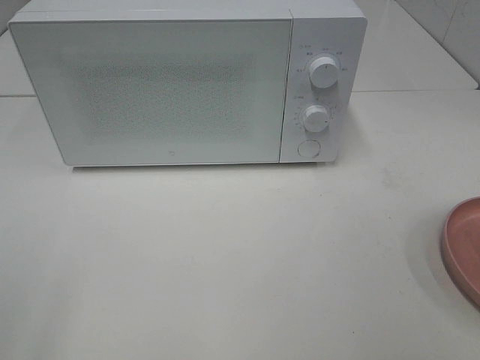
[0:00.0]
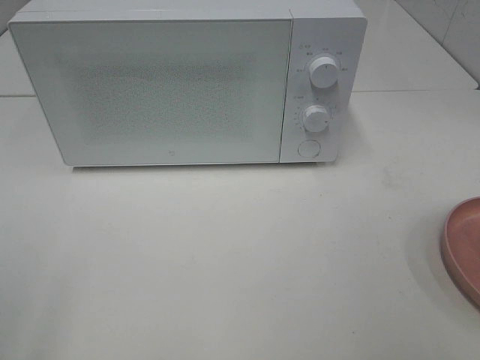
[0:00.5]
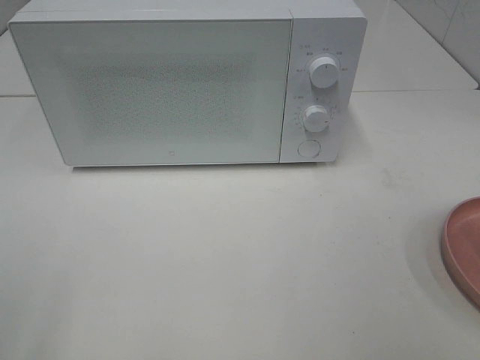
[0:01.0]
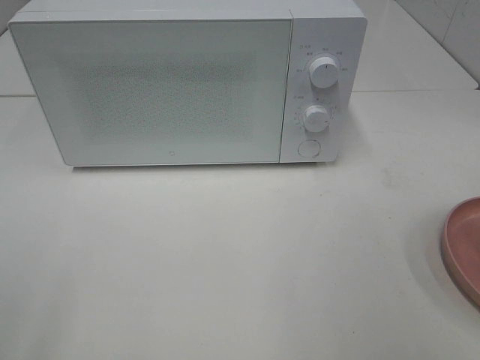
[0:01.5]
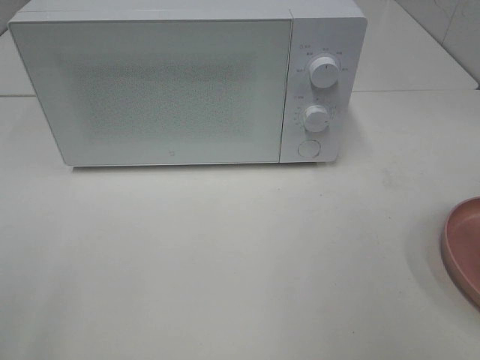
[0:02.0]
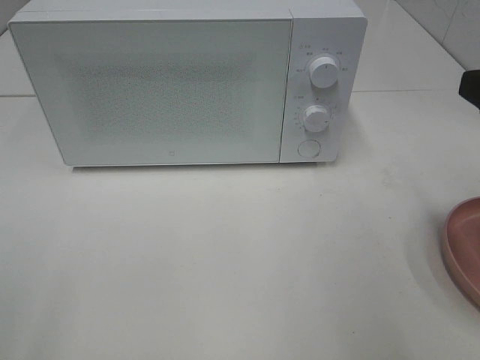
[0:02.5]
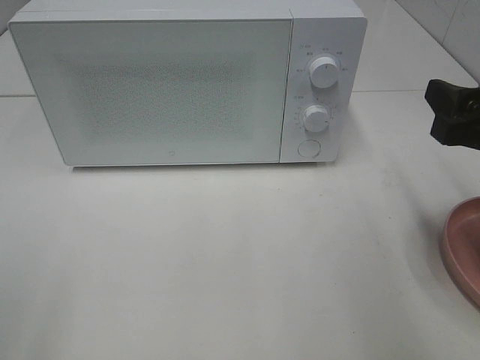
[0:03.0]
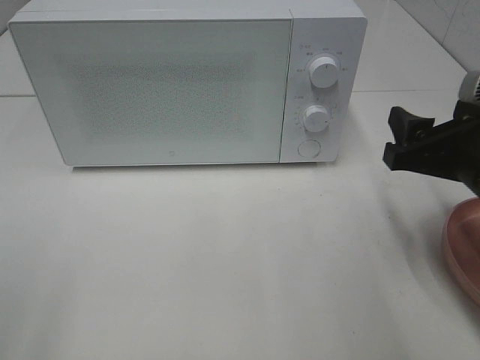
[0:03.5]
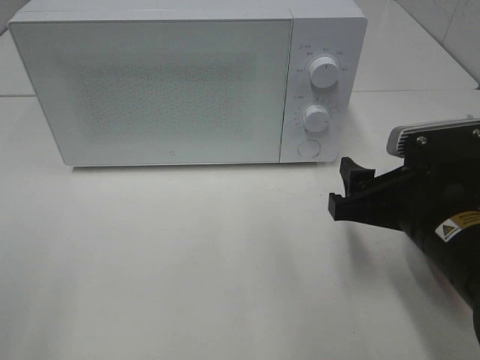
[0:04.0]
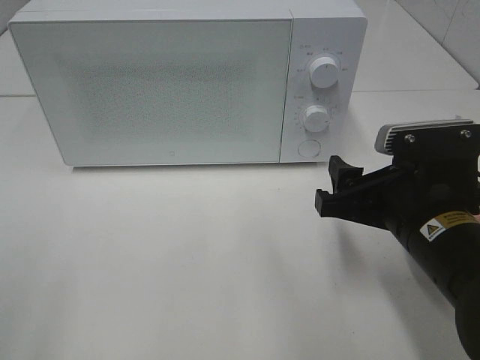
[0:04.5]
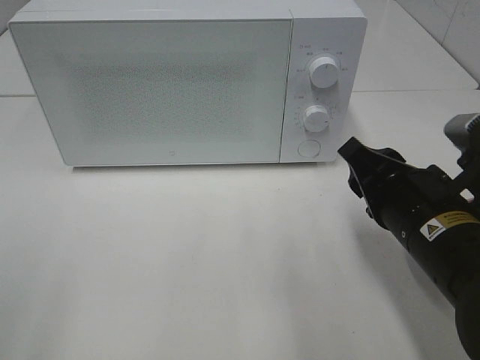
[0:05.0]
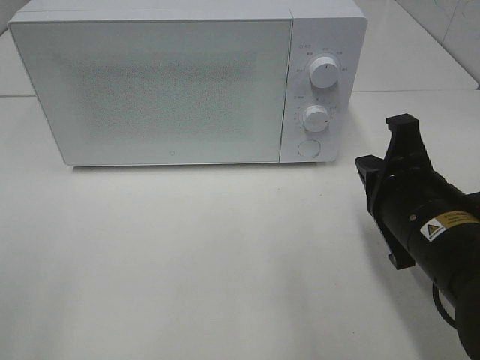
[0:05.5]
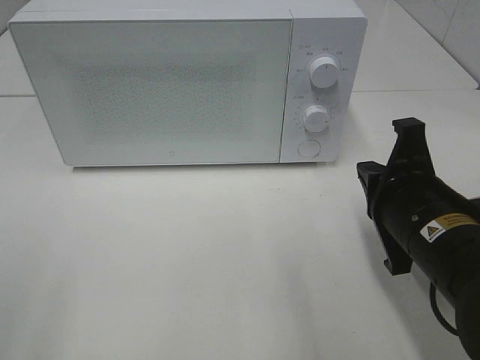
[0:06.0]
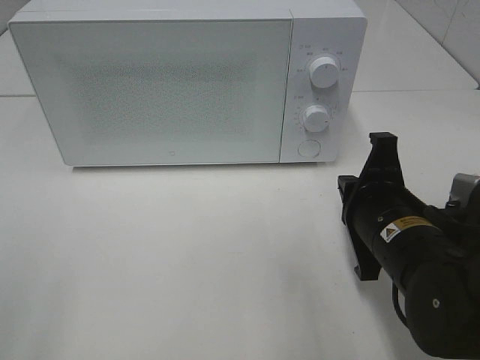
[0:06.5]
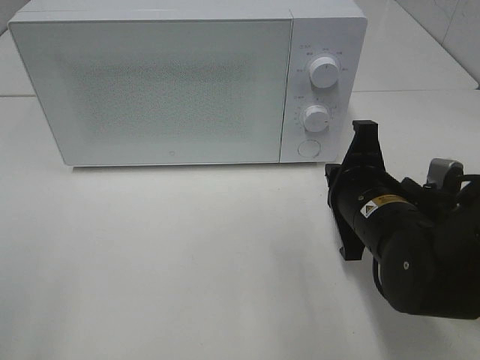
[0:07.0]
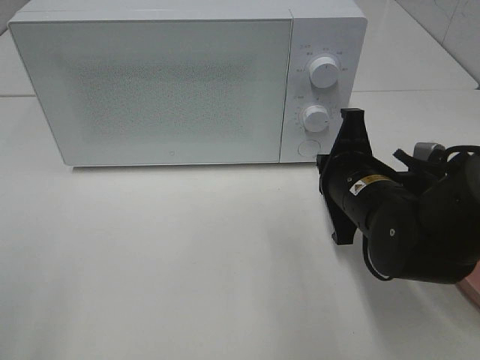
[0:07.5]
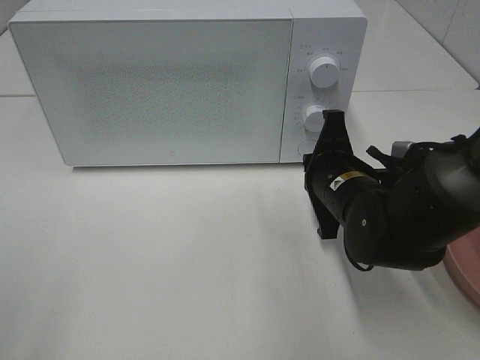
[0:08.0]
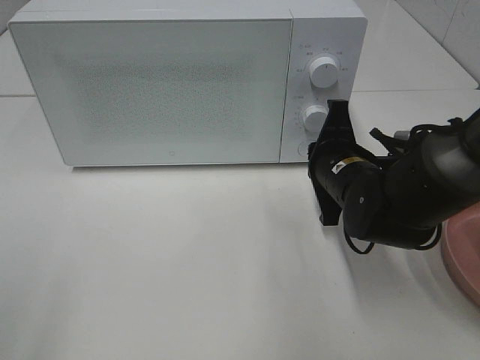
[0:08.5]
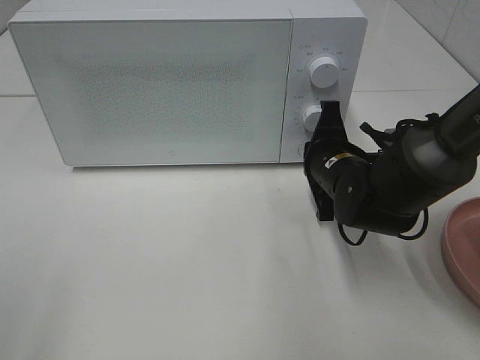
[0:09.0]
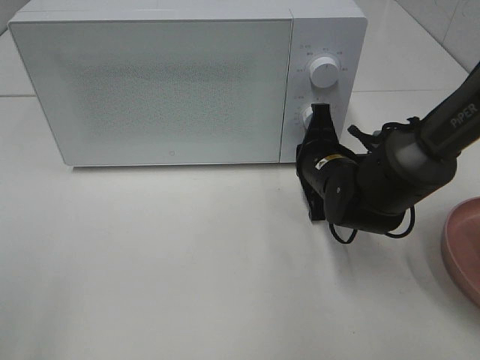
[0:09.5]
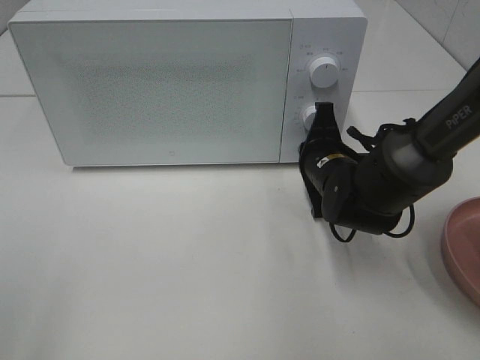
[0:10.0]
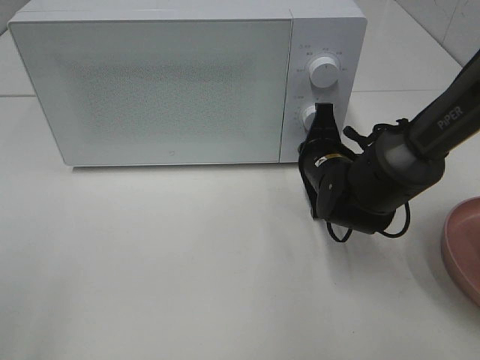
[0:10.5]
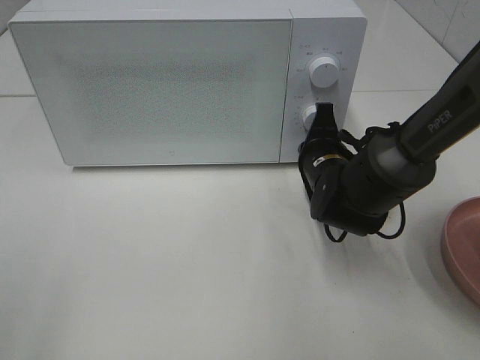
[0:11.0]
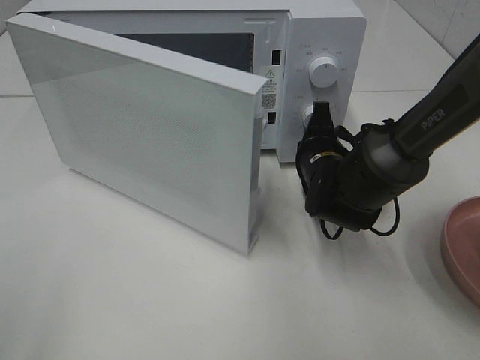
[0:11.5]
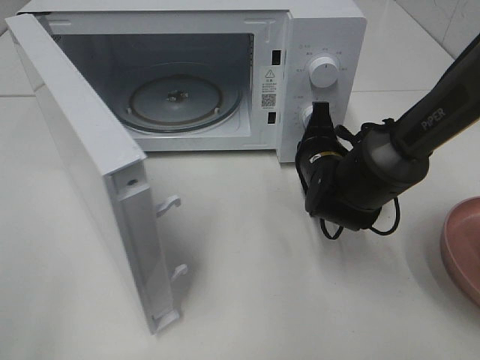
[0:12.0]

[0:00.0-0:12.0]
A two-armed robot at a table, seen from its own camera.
Task of the whole recording: Heat the burger.
0:02.0 to 0:04.0: The right gripper goes roughly 20 cm downward and to the left.
0:04.0 to 0:06.0: The right gripper closes.
0:06.0 to 0:08.0: The right gripper moves forward, approximately 10 cm.
0:08.0 to 0:10.0: The right gripper is displaced forward by some 5 cm.

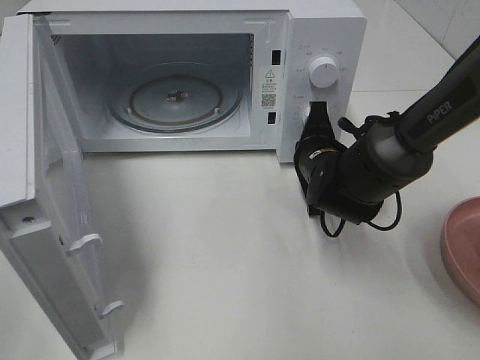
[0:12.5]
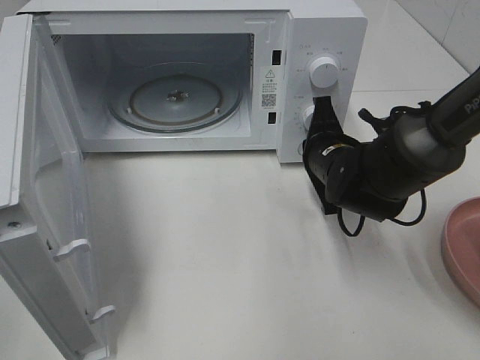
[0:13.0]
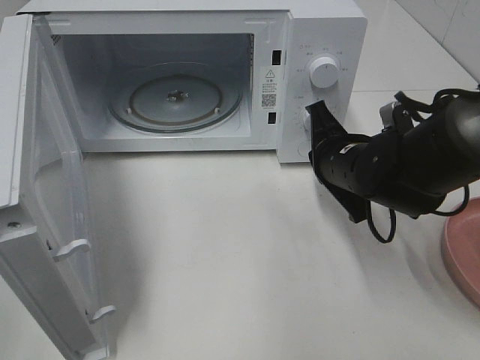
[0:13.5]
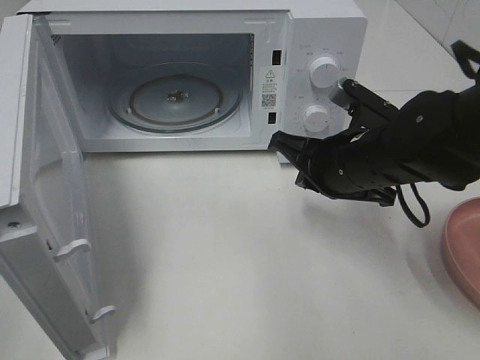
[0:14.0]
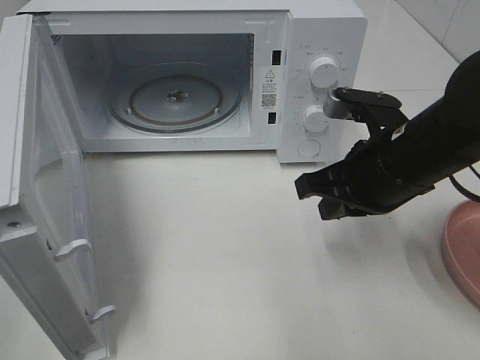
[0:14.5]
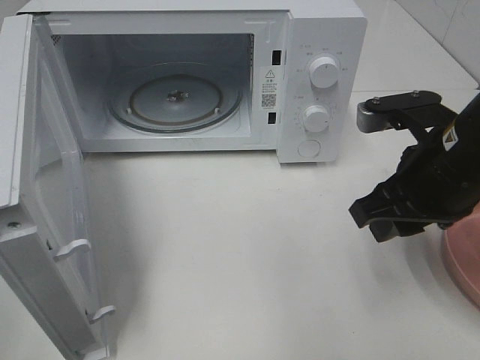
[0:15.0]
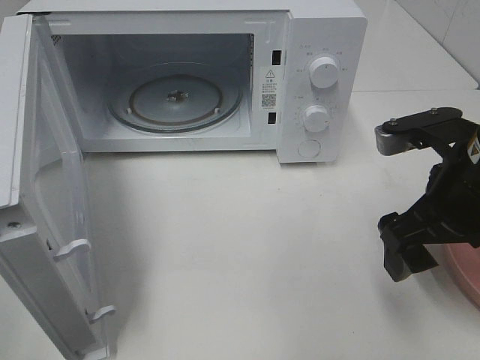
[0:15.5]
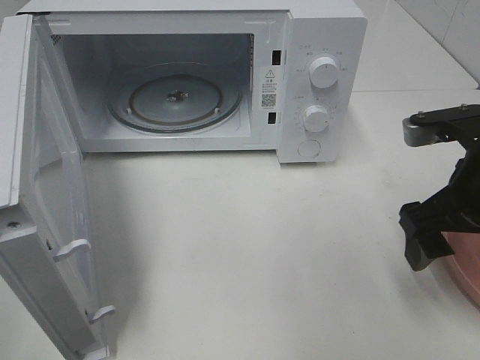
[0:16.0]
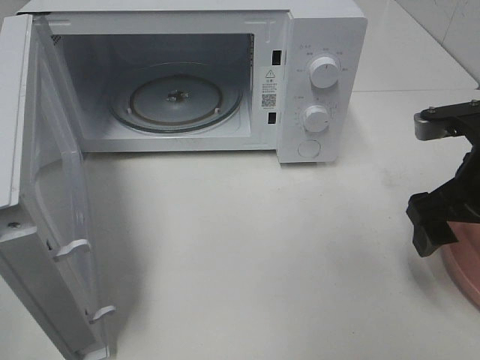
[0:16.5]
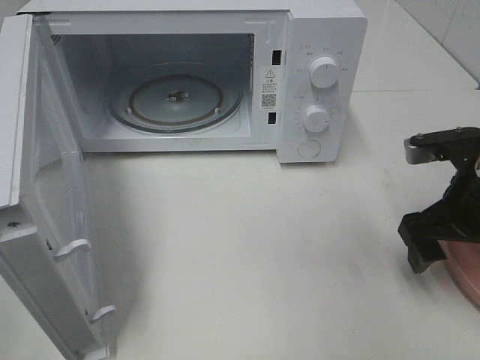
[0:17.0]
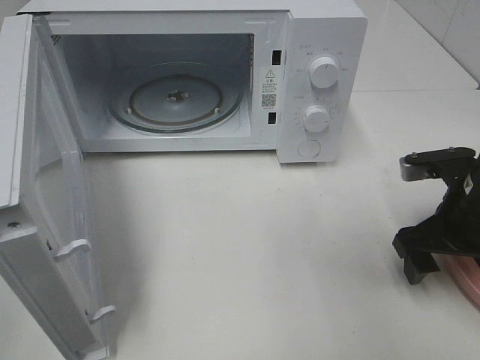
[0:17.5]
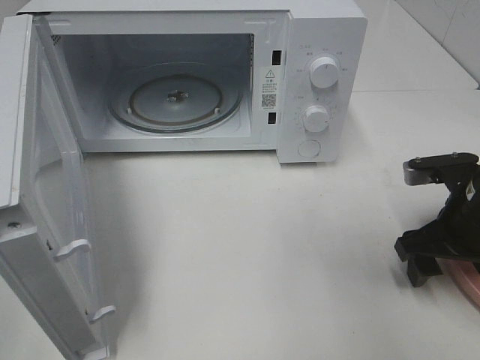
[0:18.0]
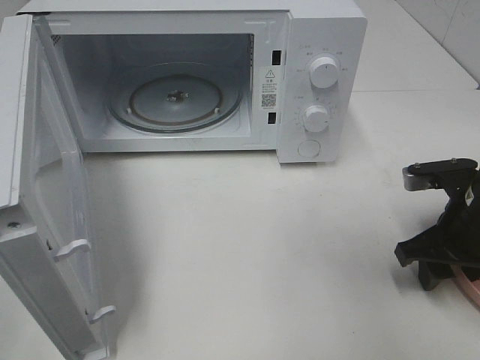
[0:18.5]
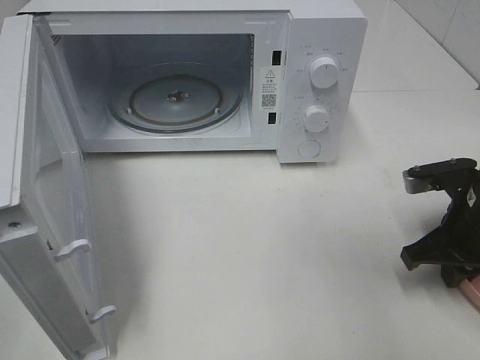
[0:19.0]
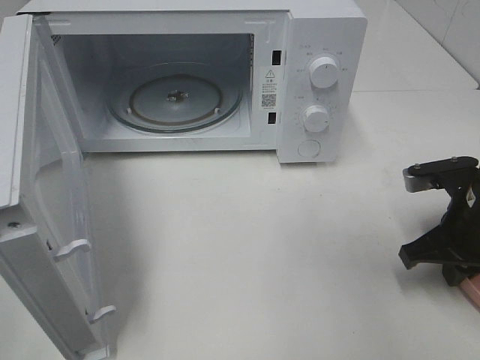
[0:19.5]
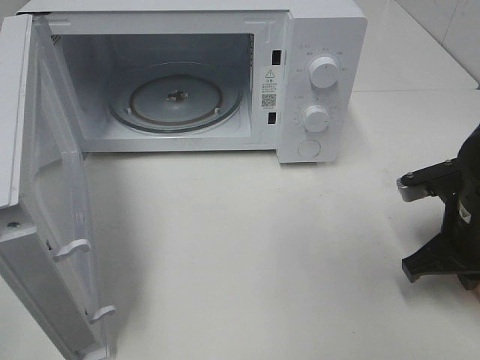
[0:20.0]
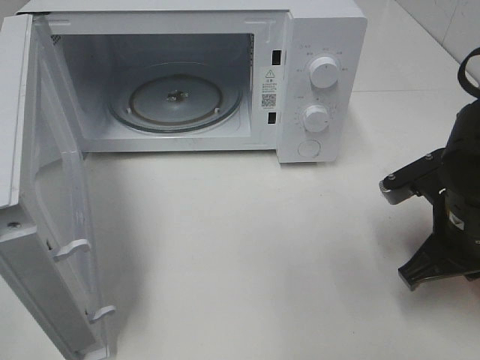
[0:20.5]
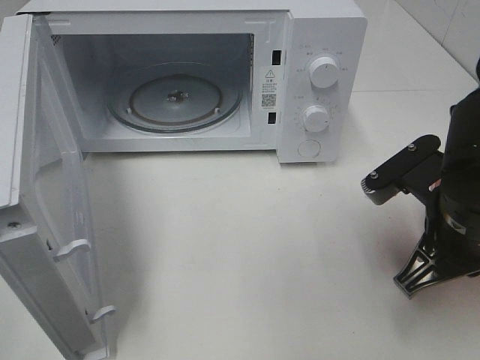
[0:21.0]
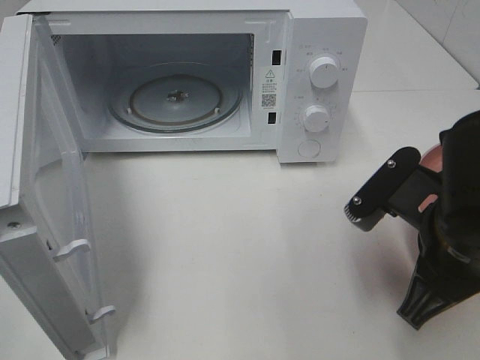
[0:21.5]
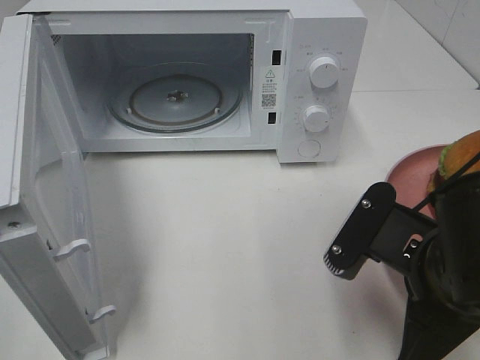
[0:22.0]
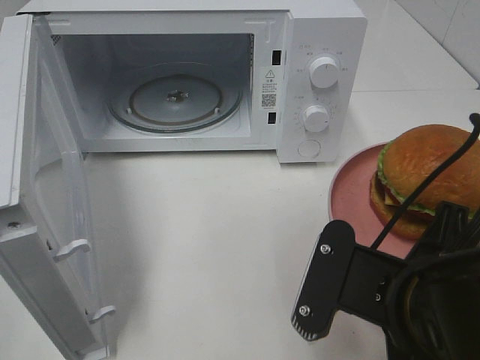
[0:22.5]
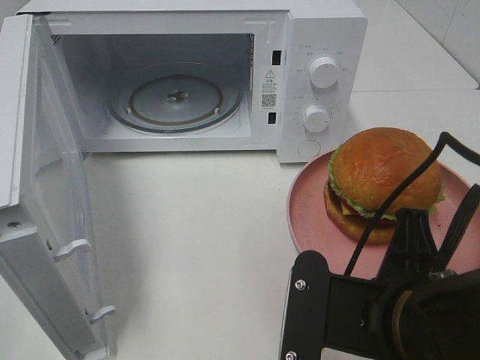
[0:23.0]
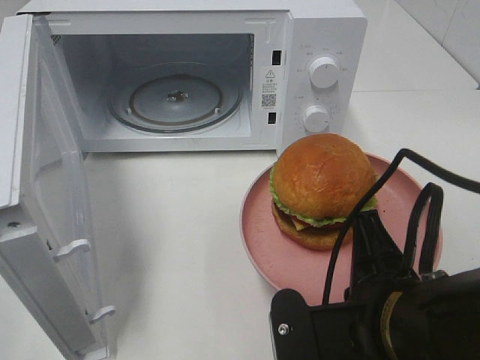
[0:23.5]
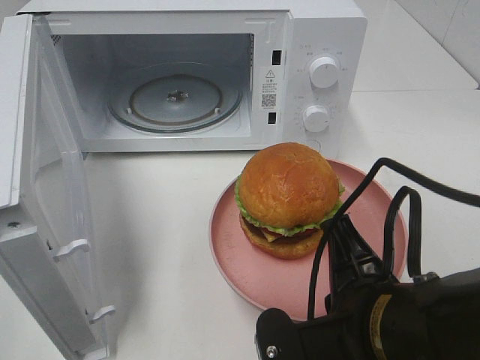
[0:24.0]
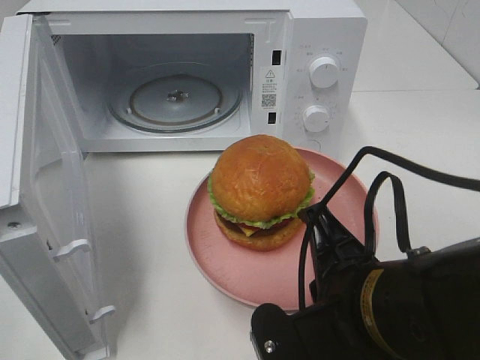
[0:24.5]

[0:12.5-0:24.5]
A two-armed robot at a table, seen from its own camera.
Task of the whole recording: Heat the burger.
Step, 0:13.5 to 0:19.5: Right hand: grab the plate with the hamburger.
0:12.5 to 0:14.5: The right gripper heads upward and backward, covering some 15 cm.
0:14.5 to 0:16.5: The right gripper is displaced to the right by approximately 10 cm, and opens.
0:16.5 to 0:18.5: The right gripper moves downward, roughly 10 cm, and closes up.
0:18.5 to 0:20.5: The right gripper changes place by some 5 cm, and closes up.
0:20.5 to 0:22.5: The right gripper heads backward and to the left, covering some 15 cm.

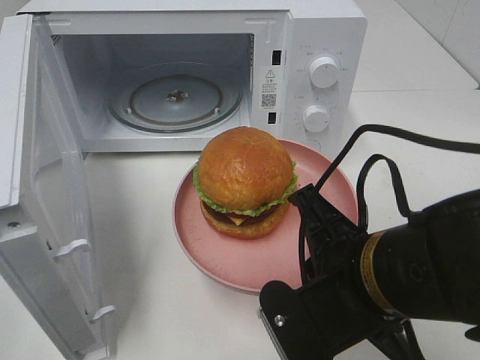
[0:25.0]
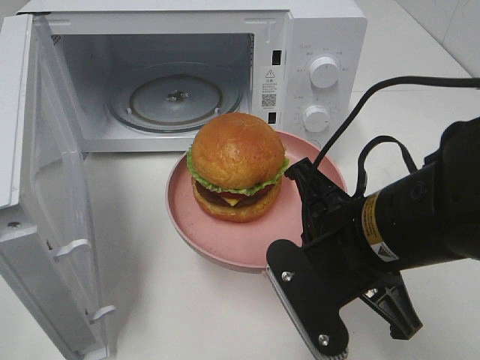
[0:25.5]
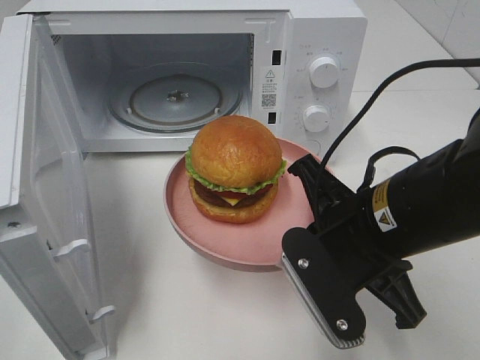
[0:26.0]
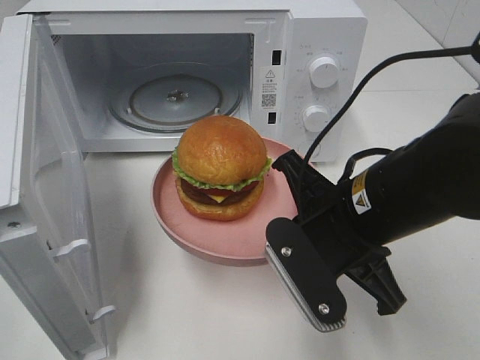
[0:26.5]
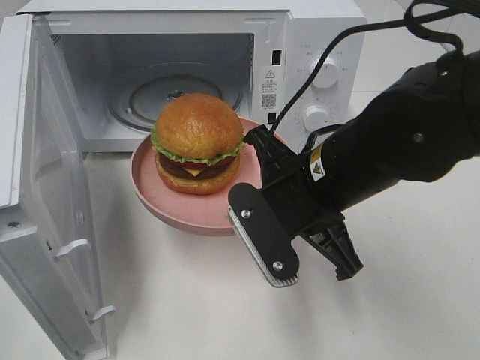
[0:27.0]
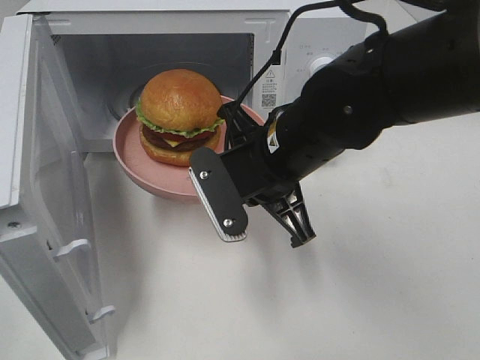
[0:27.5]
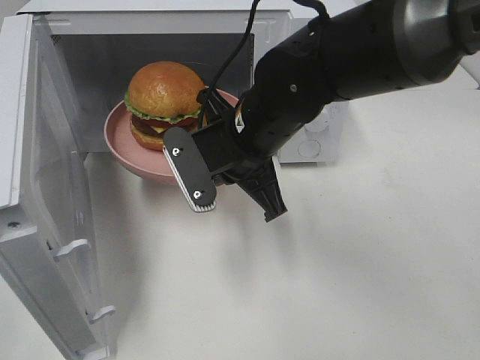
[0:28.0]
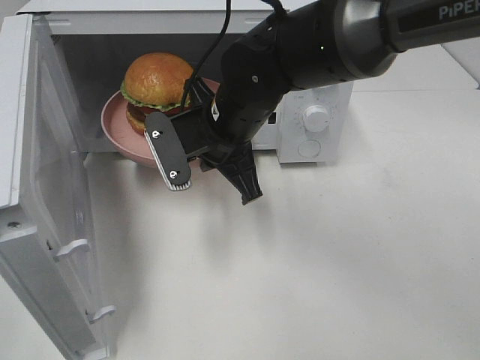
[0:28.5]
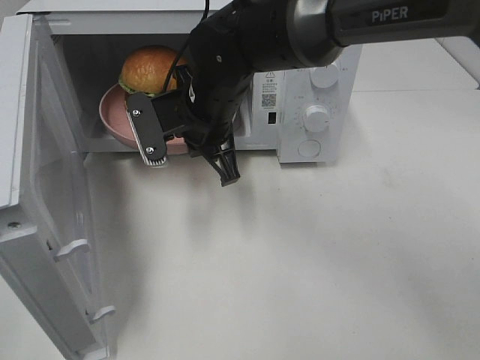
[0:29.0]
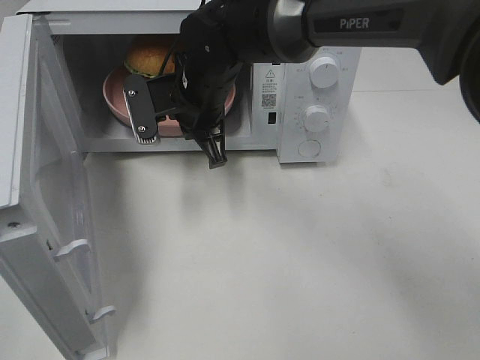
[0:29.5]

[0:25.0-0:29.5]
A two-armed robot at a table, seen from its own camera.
Task of the whole recording: Heat the burger.
0:25.0 to 0:27.0: The right gripper heads forward, covering about 10 cm.
0:27.0 to 0:29.5: The right gripper travels forward and to the left by approximately 20 cm.
